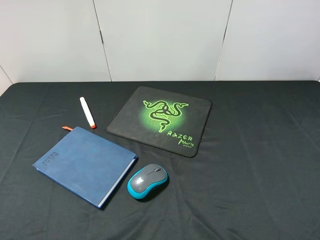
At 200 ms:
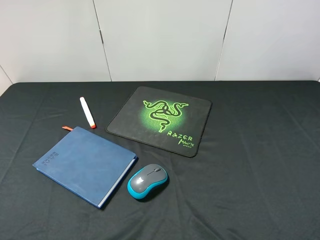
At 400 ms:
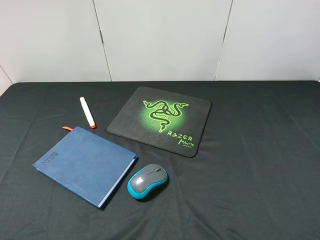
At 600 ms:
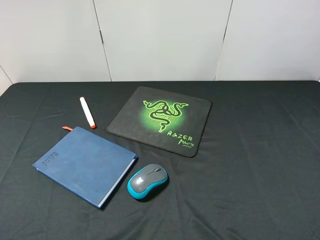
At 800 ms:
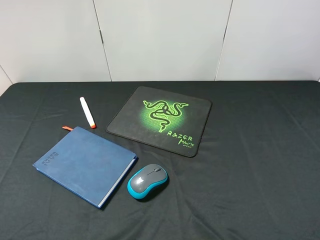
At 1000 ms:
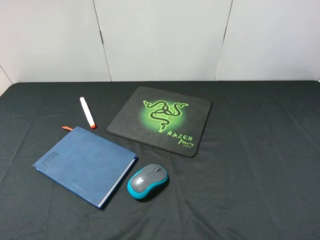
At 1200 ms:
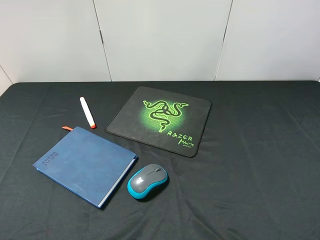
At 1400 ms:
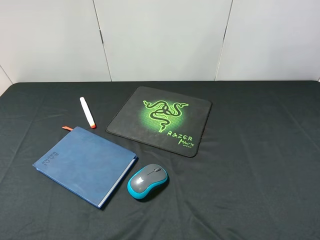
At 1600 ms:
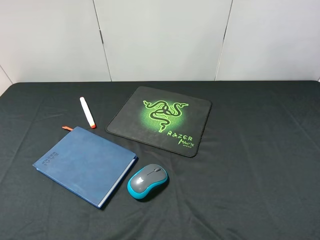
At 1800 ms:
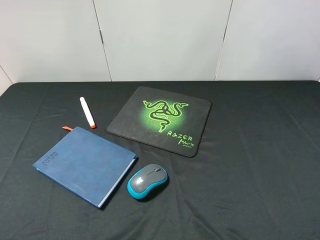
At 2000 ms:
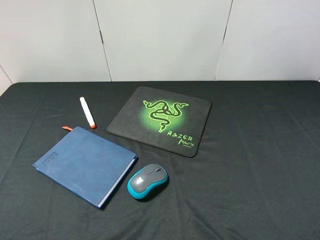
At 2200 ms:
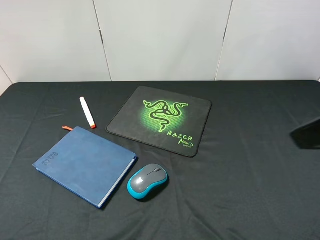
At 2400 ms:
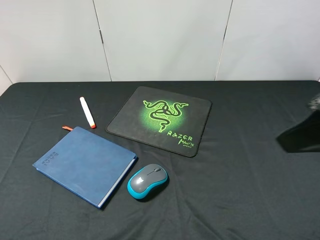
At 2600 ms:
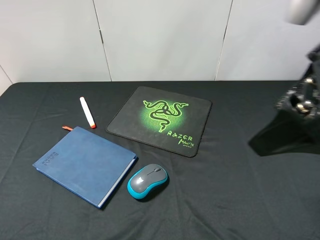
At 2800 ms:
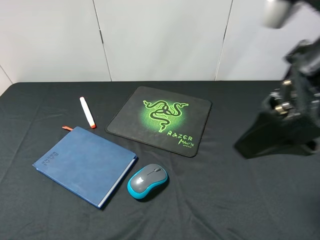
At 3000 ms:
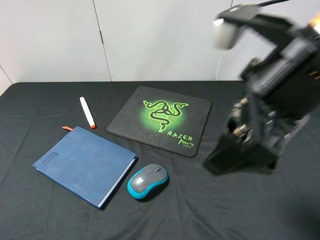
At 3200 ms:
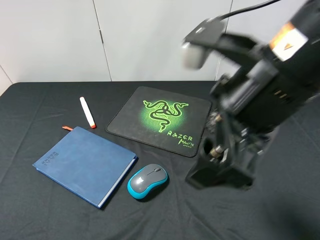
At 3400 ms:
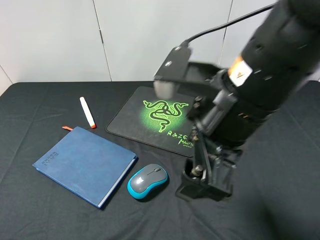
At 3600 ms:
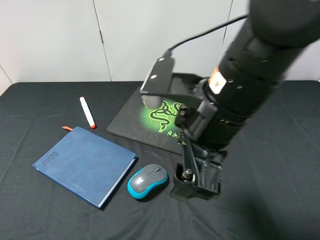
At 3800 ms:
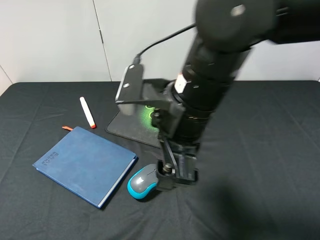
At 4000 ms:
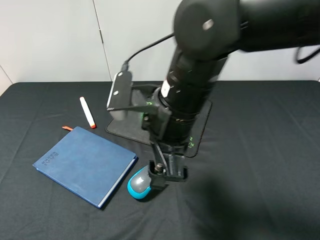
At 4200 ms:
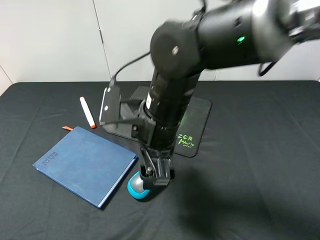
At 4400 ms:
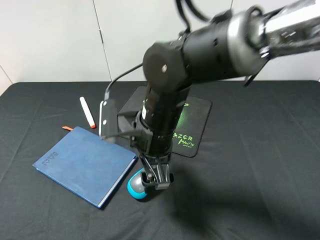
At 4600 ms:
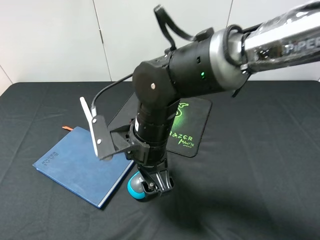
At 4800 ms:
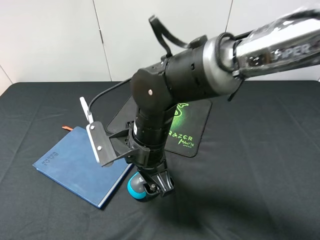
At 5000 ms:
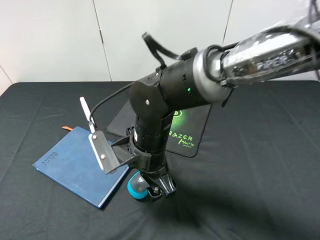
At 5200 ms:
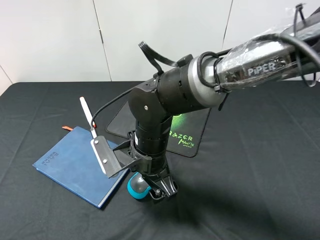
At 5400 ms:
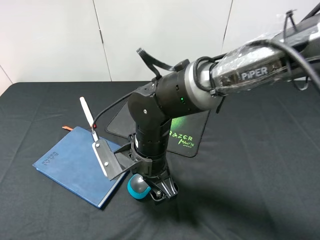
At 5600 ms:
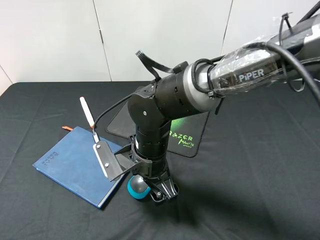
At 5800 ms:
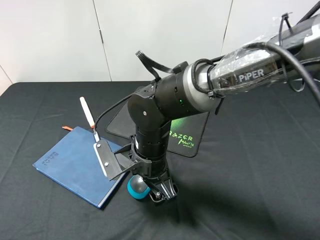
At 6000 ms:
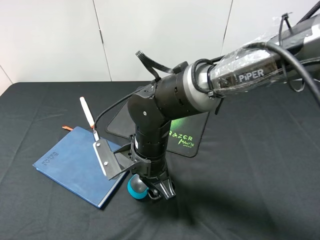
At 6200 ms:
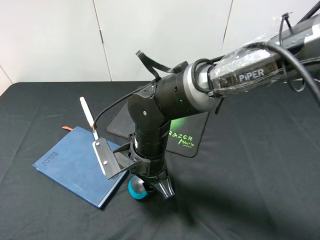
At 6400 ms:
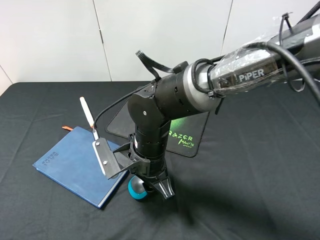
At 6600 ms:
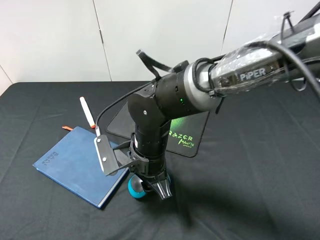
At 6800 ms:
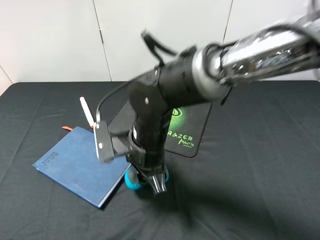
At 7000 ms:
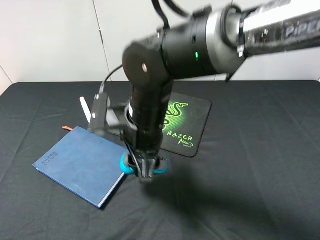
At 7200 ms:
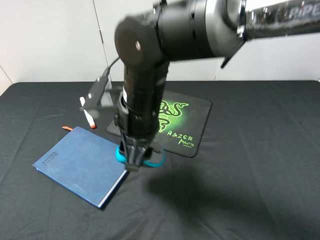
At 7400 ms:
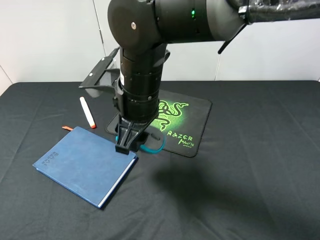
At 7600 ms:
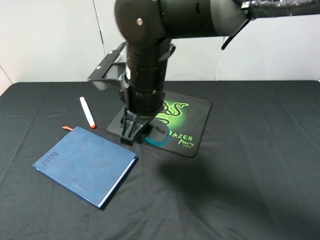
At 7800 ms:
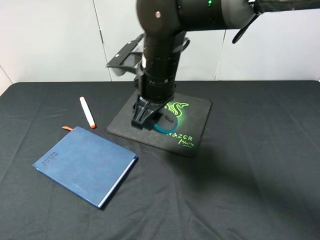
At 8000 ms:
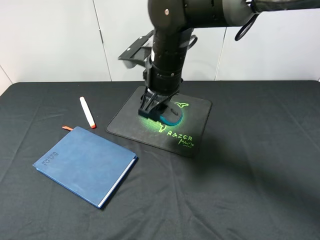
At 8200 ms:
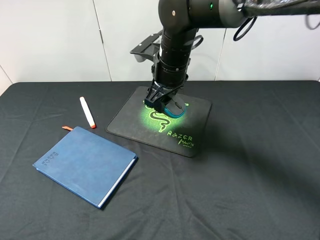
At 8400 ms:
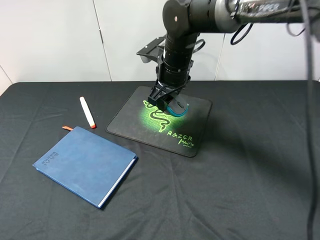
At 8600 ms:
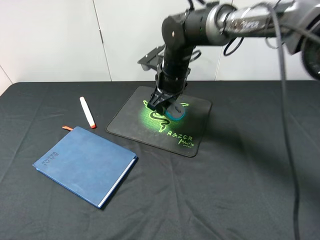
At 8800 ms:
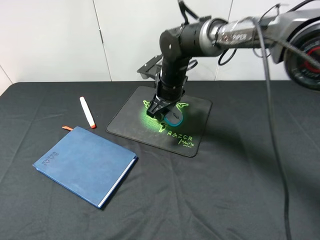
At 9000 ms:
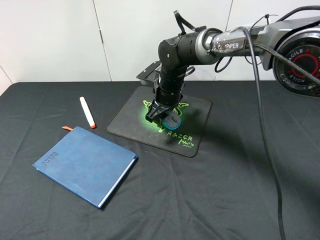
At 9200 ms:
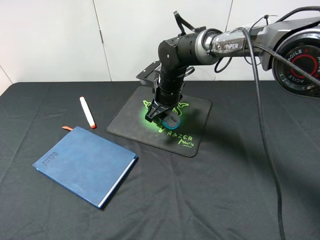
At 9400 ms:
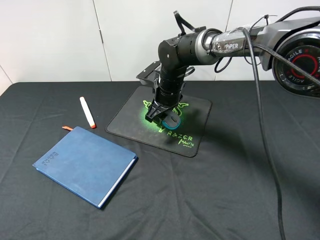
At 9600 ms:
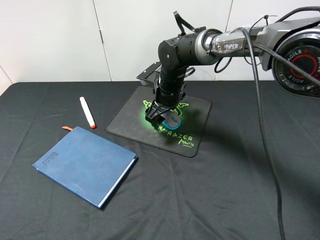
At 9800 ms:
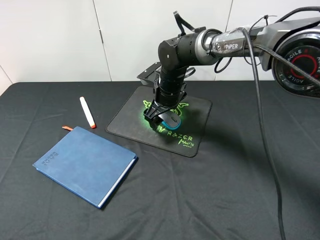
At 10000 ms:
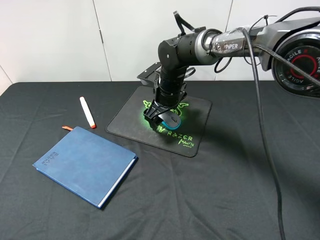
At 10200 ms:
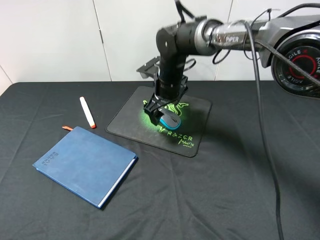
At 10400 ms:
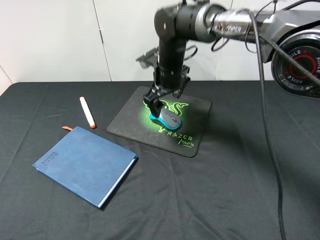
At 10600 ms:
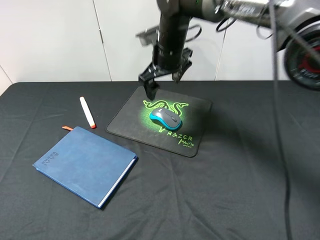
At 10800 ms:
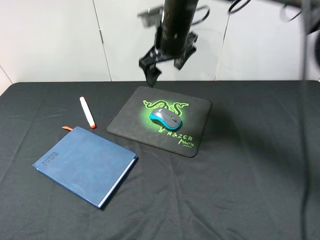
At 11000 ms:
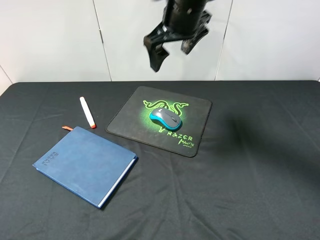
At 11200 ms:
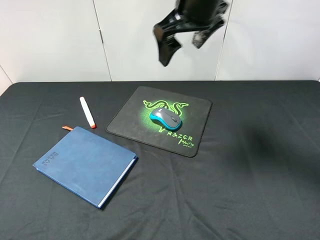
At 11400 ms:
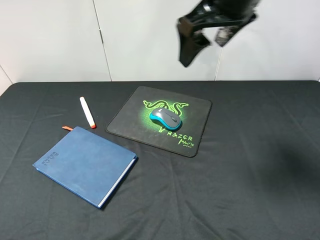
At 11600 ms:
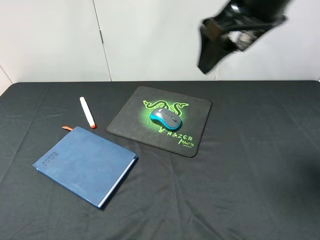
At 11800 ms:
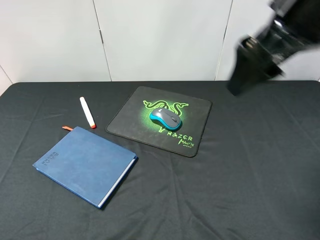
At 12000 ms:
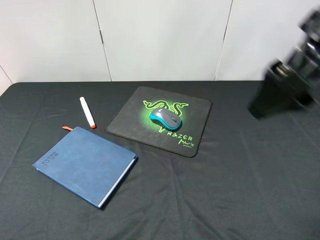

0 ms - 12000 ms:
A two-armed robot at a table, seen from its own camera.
Step, 0 ms - 6800 ms: Pick up the mouse with right gripper.
Step, 7000 ms - 10200 ms: Place the mouse on the mouse pad with right gripper.
1600 ms - 3000 ms: The right gripper is displaced to the left and forward by roughly 20 cm.
3000 ms - 4400 ms: The right gripper goes some 20 cm downward, to the left and forward.
4400 ms - 6000 ms: The right gripper goes about 5 cm downward, and closes its fingers.
6000 ms - 7600 ms: The right gripper shifts about 10 cm upward, and closes up.
7600 ms - 9000 ms: The right gripper shifts approximately 20 cm forward and downward.
9000 ms - 10400 ms: The right gripper is displaced upward by roughly 5 cm, and opens its fingers.
10400 ms - 12000 ms: The right gripper moves backward, to the right and upward, roughly 35 cm.

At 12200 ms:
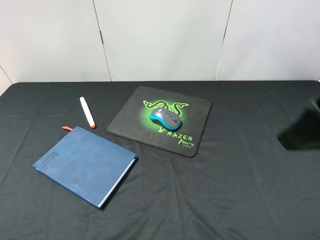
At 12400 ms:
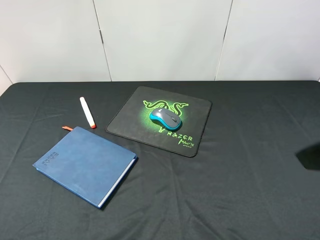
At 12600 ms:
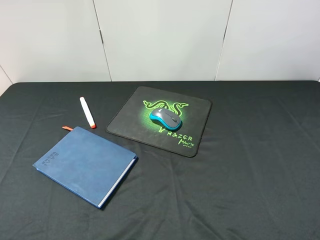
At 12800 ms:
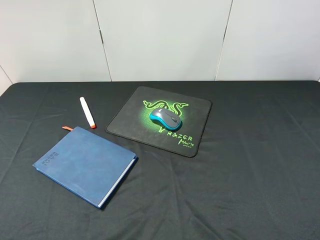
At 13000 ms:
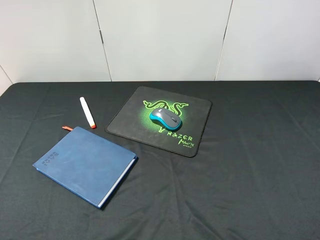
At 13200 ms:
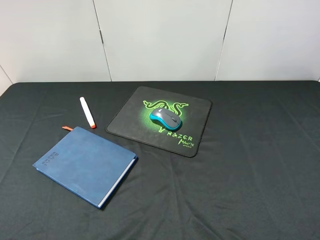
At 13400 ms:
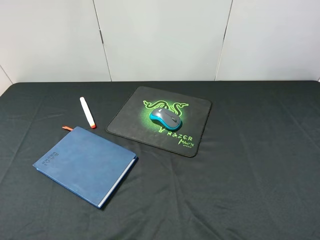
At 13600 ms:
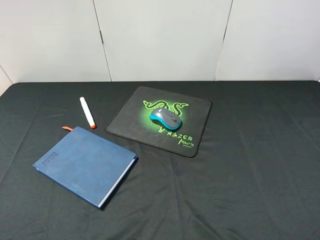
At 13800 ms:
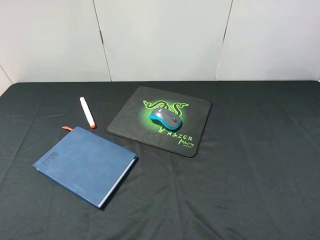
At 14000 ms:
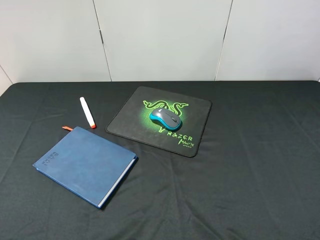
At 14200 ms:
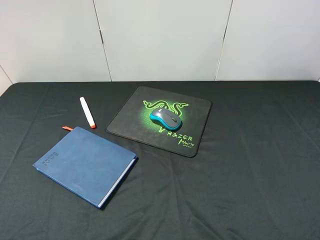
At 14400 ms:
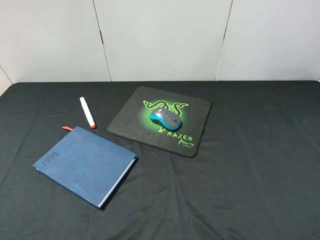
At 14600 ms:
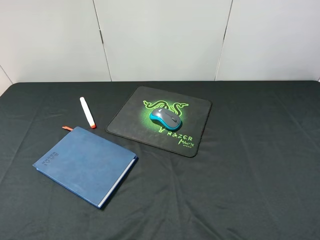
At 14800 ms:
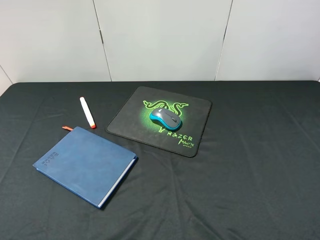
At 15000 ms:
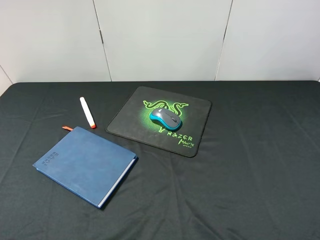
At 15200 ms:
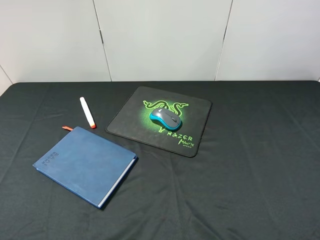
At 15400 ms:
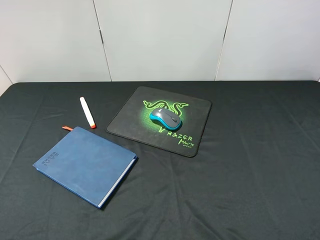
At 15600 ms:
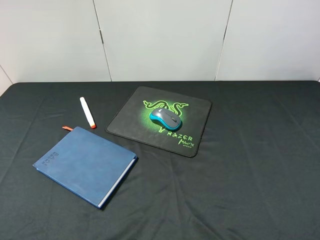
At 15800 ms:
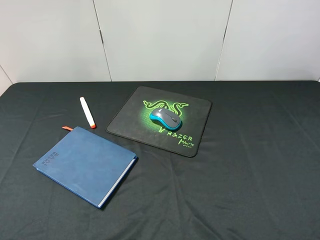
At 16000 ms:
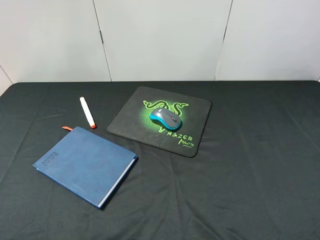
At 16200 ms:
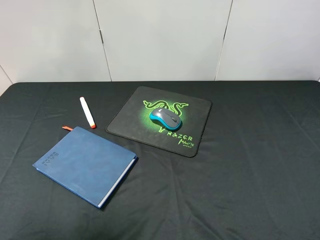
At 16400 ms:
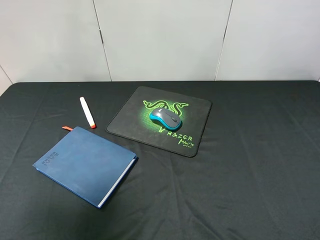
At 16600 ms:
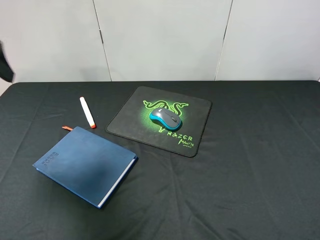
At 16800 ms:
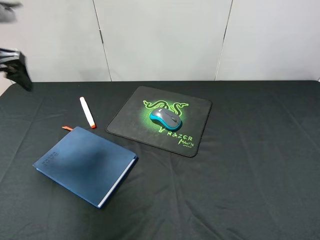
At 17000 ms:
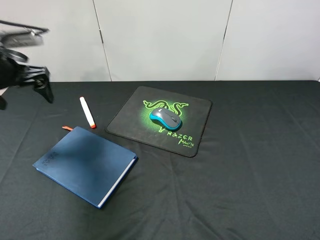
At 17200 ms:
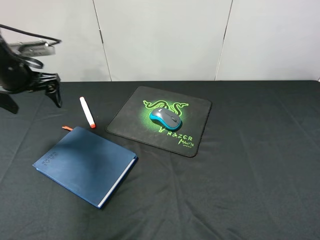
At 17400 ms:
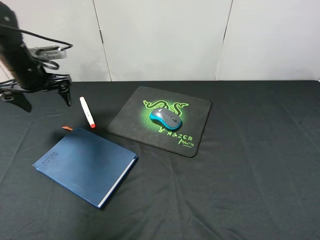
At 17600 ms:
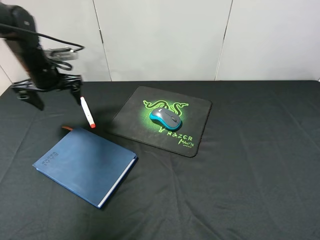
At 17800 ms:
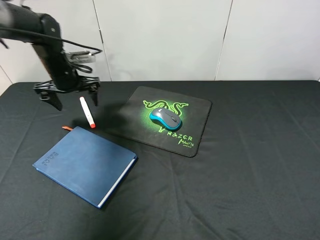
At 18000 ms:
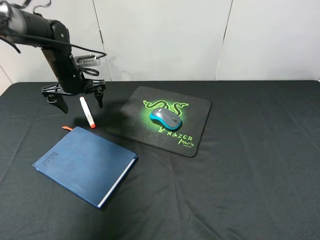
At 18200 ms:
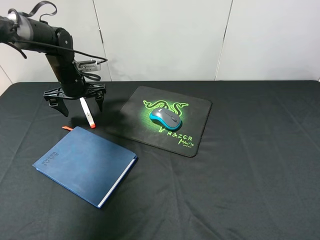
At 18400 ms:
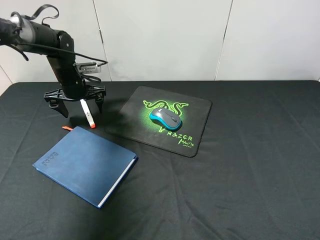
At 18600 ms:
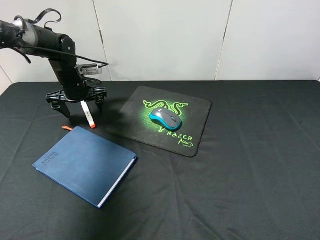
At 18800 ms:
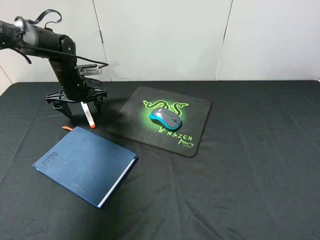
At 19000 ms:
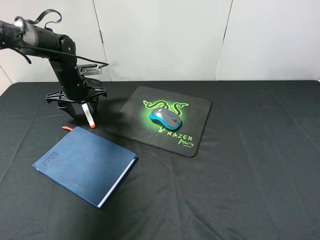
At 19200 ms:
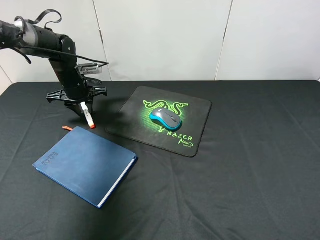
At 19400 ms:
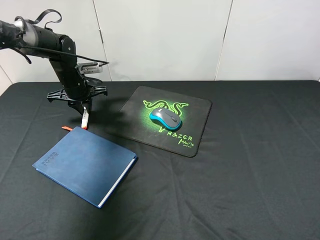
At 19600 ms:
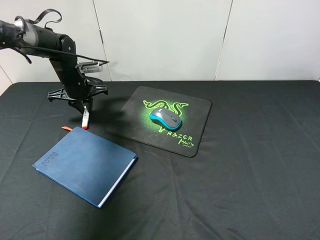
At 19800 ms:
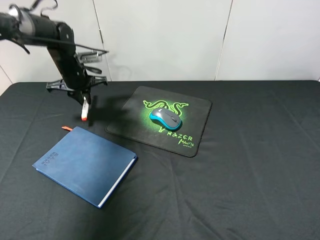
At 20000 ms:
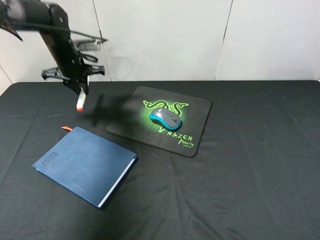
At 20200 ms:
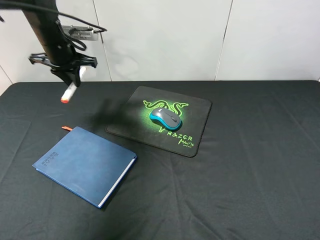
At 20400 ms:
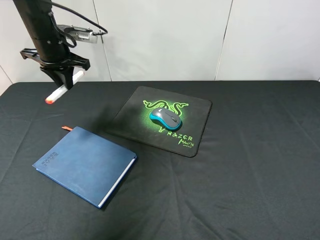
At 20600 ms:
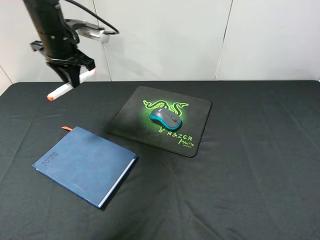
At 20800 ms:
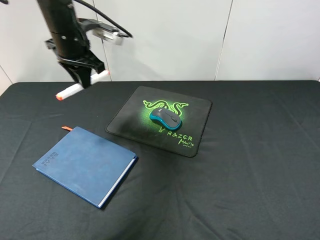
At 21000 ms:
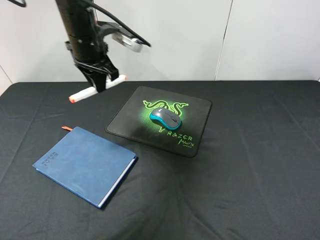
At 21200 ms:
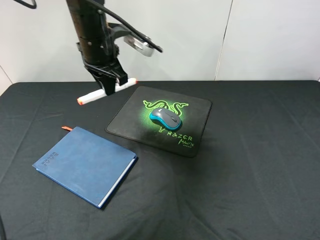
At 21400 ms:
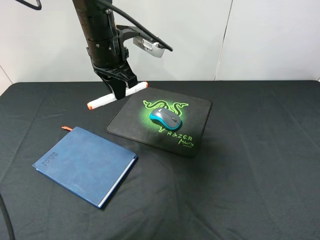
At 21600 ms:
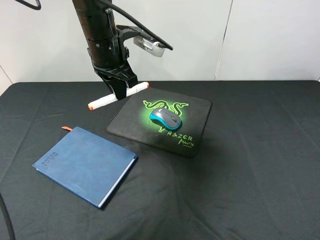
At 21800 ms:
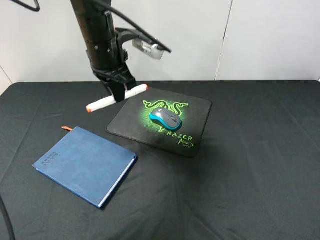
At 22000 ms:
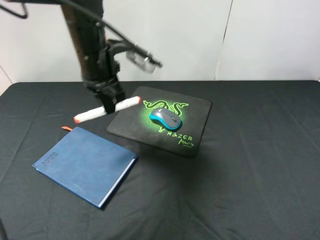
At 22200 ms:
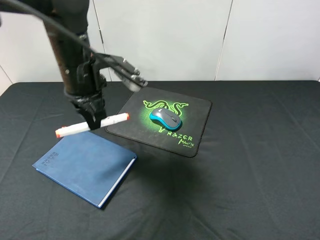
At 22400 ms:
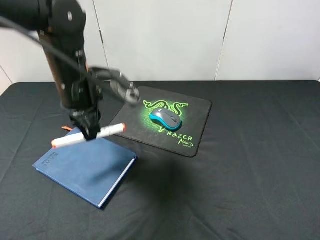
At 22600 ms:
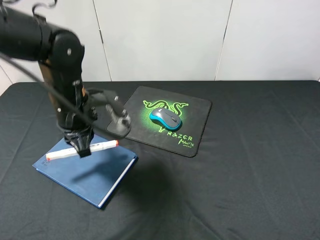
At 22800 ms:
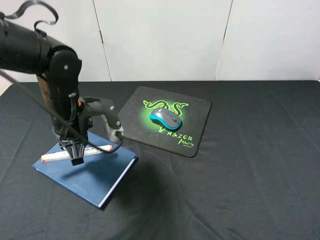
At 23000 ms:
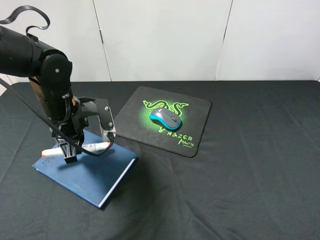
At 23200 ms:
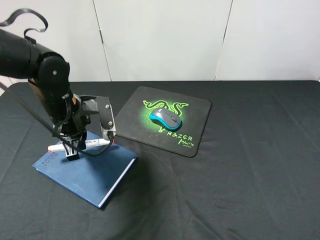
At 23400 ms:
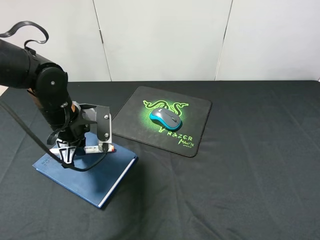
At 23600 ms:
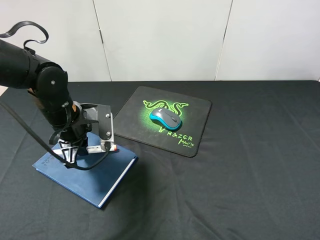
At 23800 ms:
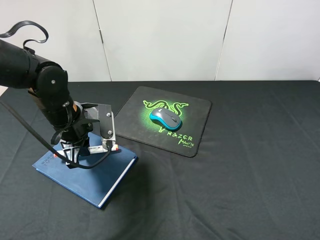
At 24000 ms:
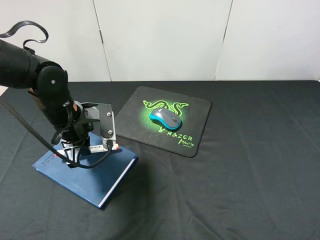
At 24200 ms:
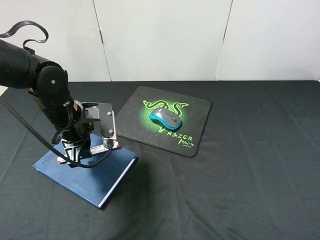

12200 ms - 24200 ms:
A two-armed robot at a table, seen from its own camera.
Step, 12200 ms - 19800 ms: Pick up the marker pen with left gripper.
12200 ms - 13800 ms: The right gripper moves backward, to the right and downward, roughly 15 cm.
13800 ms - 15200 ms: Both grippers stay about where they are.
15200 ms - 16600 ms: The left gripper shifts about 25 cm forward.
16600 ms - 18200 ms: The left gripper moves downward and forward, some 25 cm.
18200 ms - 19800 ms: The left gripper closes.
19800 ms - 21200 ms: The left gripper moves to the right, upward and backward, some 20 cm.
21200 ms - 22600 ms: The left gripper moves backward, downward and to the left, approximately 15 cm.
22600 ms - 24200 ms: The left gripper opens its fingers.
